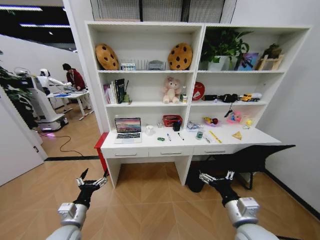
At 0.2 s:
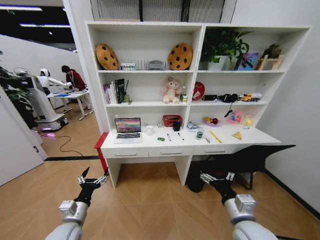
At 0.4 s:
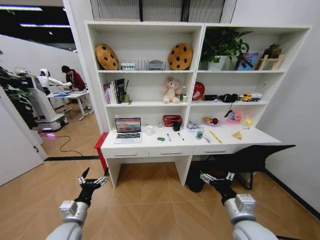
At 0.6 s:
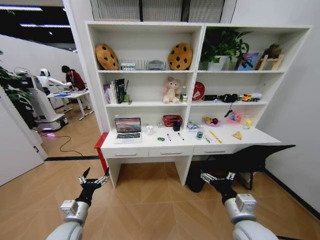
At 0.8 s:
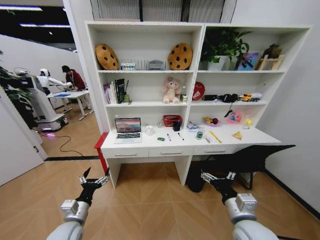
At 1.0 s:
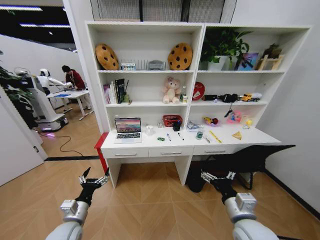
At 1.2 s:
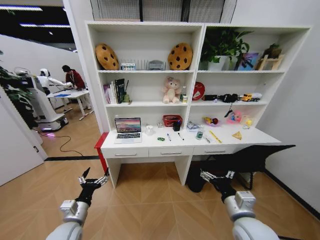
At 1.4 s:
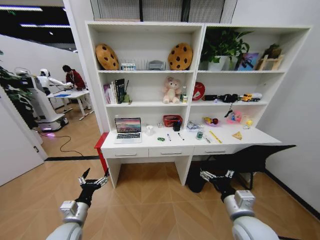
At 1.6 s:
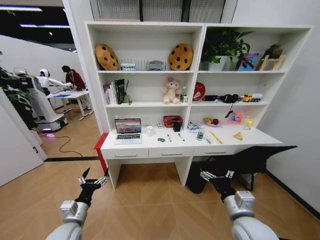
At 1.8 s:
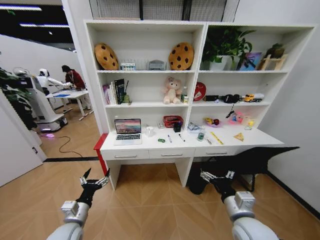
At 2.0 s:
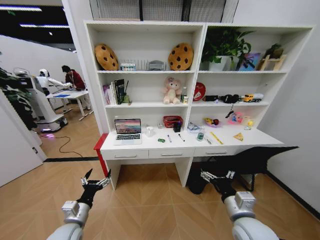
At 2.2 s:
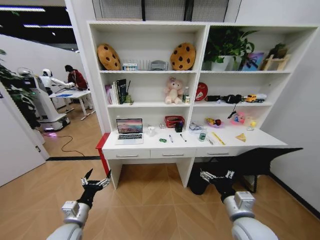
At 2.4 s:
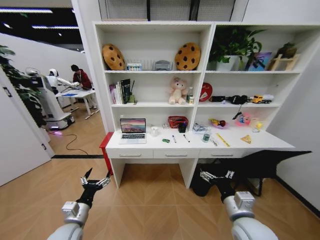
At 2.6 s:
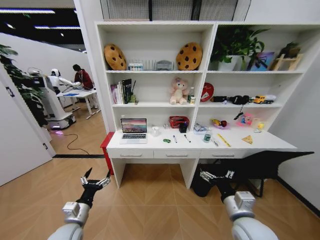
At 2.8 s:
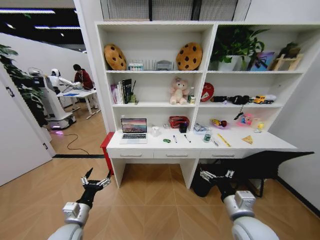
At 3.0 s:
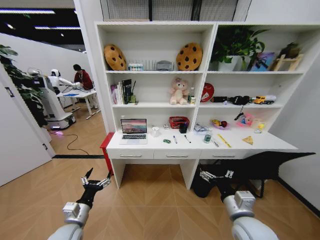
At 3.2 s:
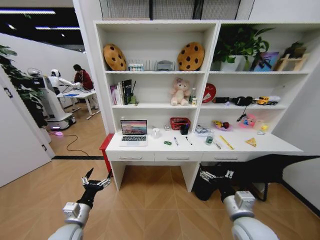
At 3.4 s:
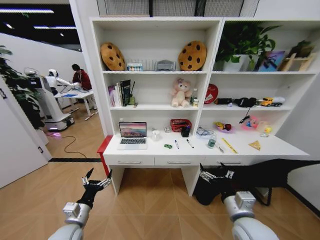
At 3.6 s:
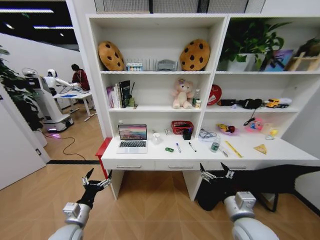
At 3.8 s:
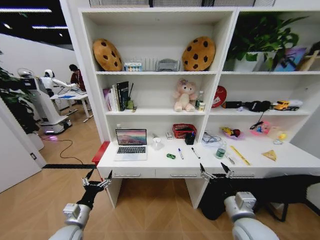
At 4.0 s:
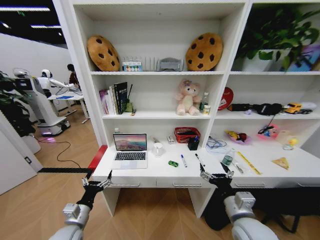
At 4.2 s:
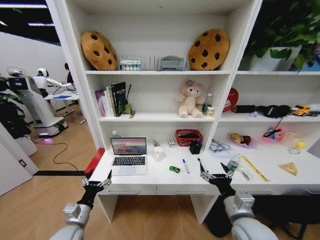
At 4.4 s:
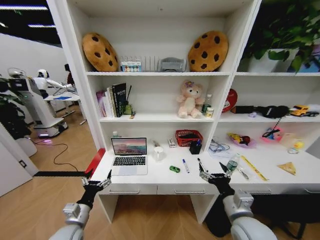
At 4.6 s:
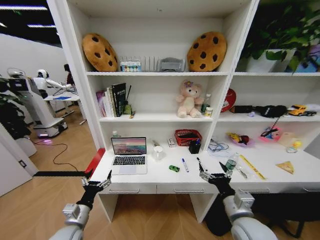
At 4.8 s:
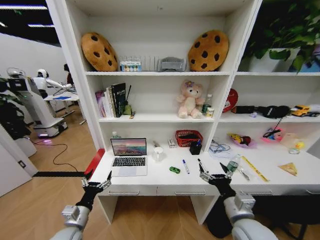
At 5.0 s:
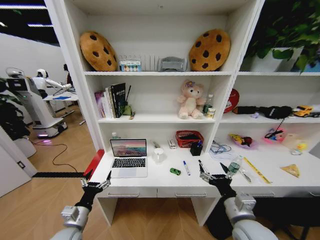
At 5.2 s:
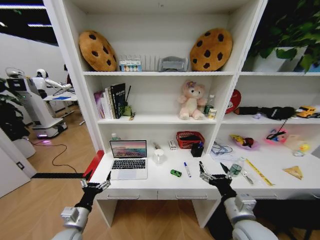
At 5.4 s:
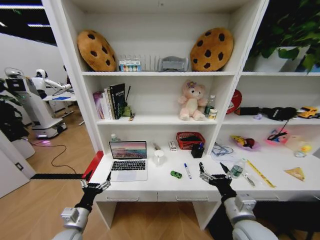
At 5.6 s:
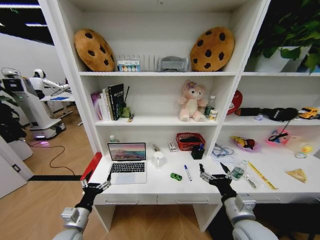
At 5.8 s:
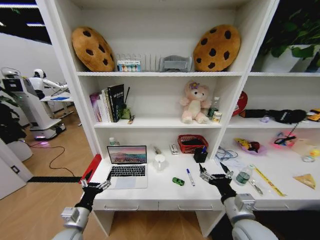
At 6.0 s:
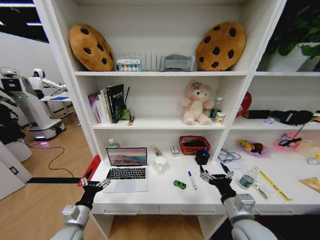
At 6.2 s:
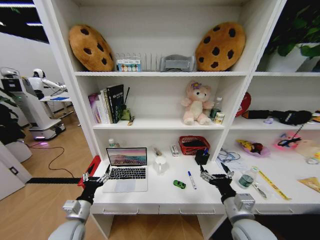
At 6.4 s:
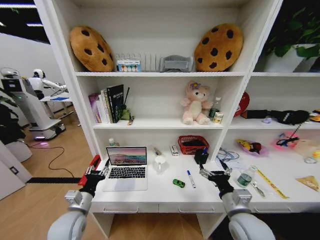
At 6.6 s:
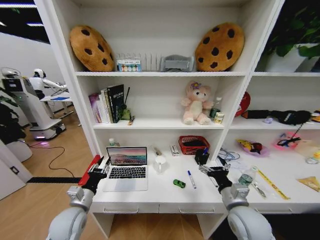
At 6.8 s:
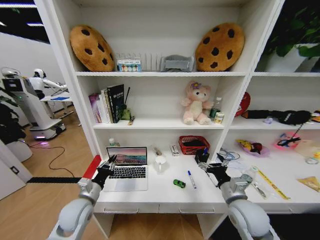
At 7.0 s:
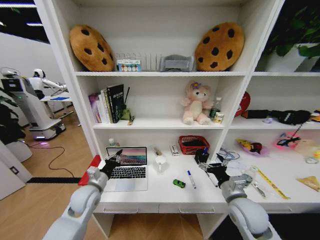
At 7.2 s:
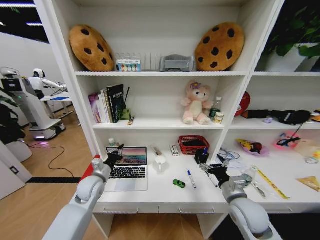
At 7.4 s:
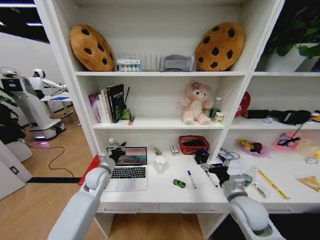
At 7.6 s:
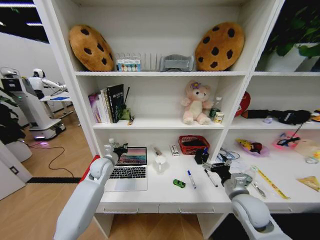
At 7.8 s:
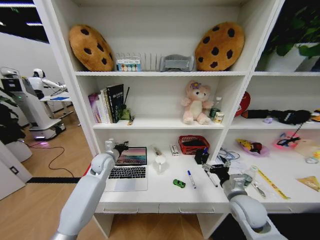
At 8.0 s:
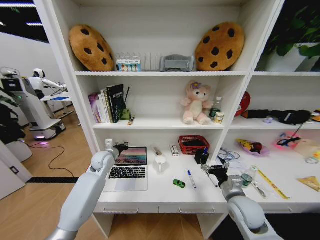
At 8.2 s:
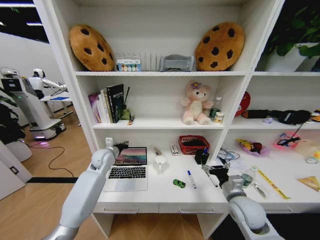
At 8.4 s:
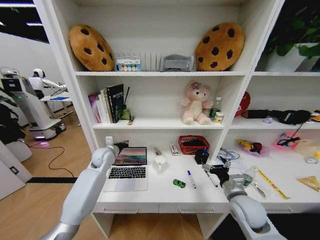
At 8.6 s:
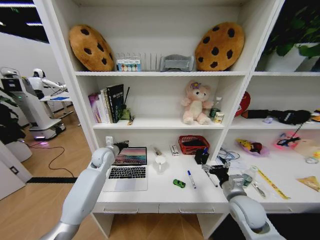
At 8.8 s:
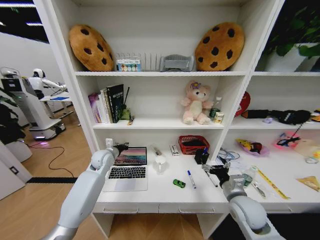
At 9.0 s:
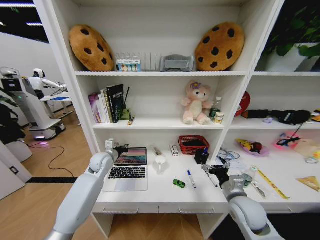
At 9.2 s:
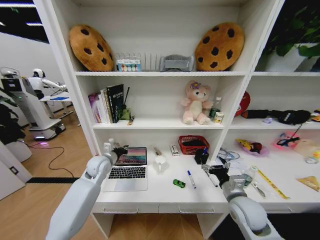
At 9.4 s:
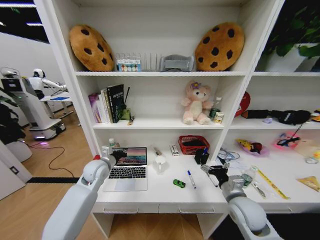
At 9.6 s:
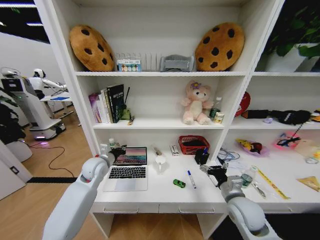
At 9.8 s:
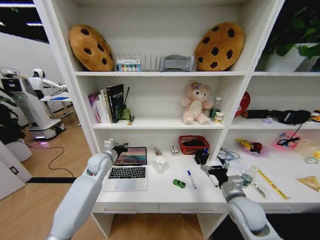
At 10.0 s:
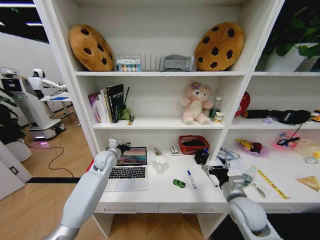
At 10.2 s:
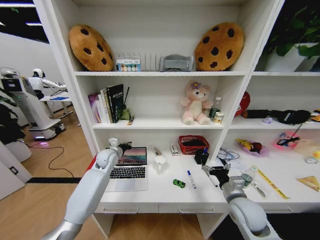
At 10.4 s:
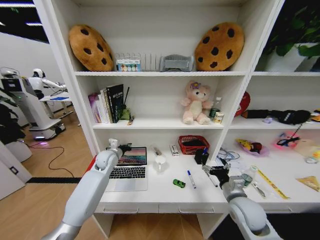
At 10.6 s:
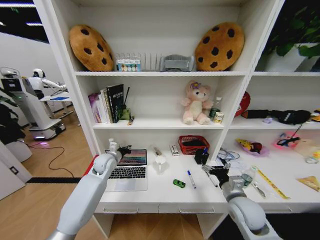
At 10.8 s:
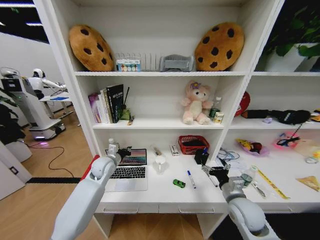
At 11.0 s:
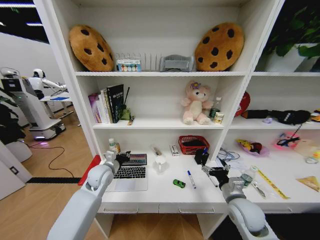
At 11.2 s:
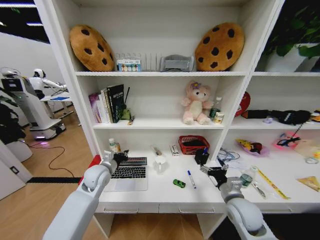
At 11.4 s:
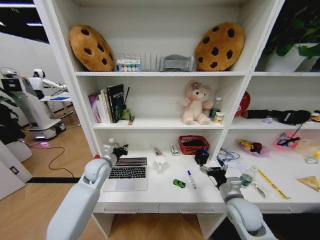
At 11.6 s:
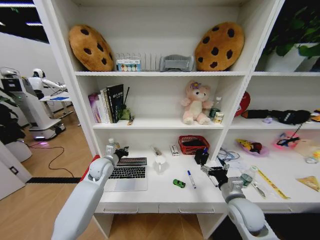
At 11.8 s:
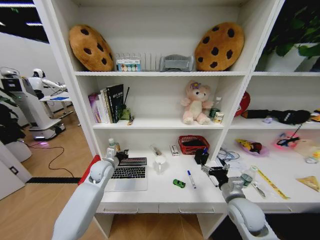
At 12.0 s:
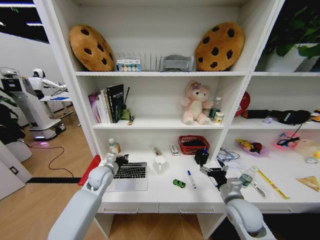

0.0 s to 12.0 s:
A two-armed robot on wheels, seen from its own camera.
Task of the whole recording: Organize the objects on the table.
6.0 to 7.6 s: The left gripper moves forward, roughly 25 cm, and closes; the right gripper goes approximately 10 cm forward and to the right.
7.6 to 9.0 s: The grippers stay close to where they were, moving slightly.
9.0 to 10.4 s: The left gripper goes backward and returns, approximately 5 cm each way.
10.4 to 12.0 s: The left gripper shifts about 10 cm backward.

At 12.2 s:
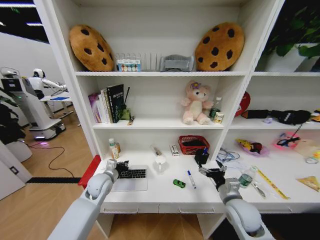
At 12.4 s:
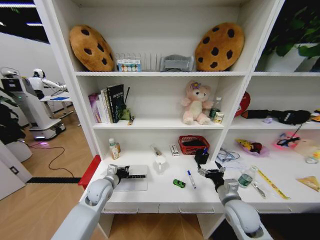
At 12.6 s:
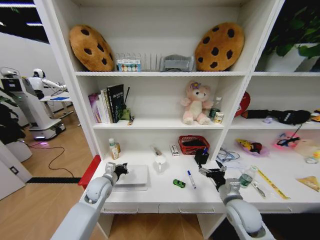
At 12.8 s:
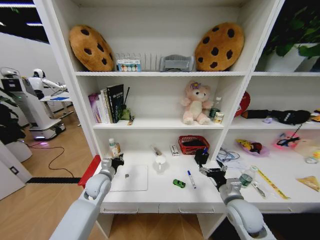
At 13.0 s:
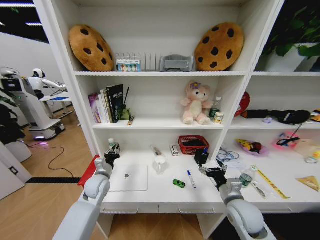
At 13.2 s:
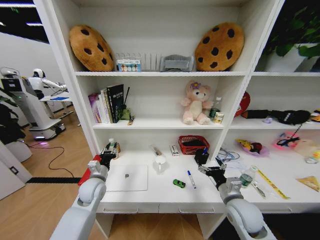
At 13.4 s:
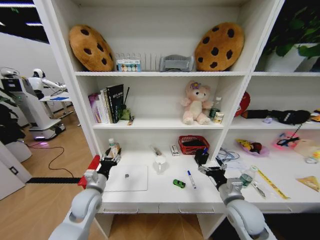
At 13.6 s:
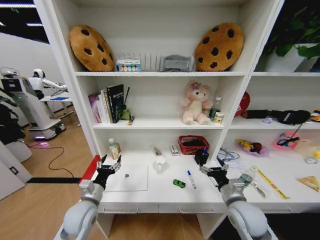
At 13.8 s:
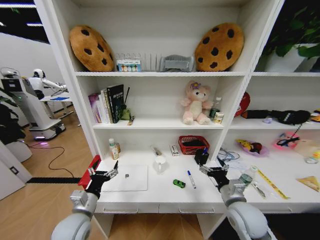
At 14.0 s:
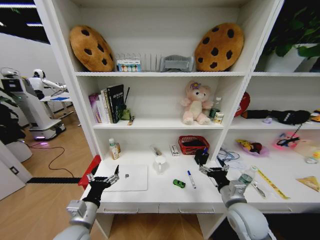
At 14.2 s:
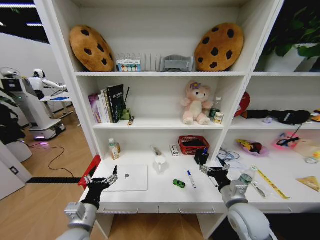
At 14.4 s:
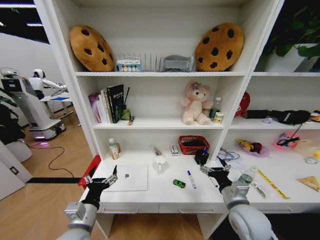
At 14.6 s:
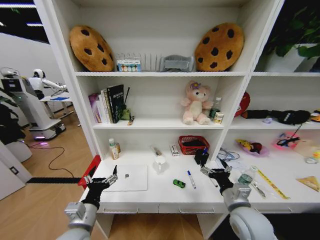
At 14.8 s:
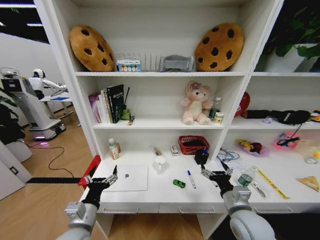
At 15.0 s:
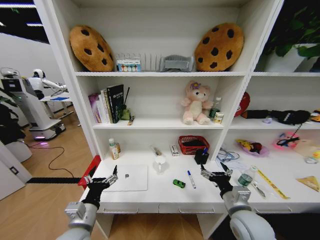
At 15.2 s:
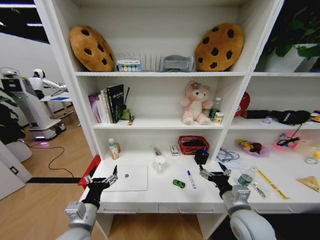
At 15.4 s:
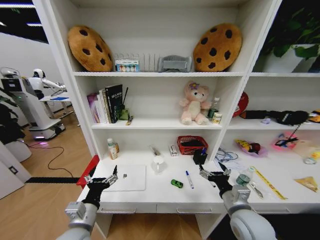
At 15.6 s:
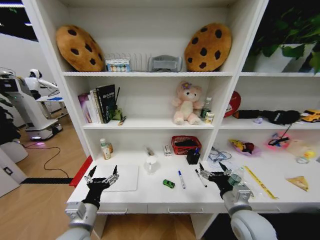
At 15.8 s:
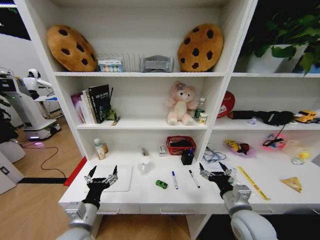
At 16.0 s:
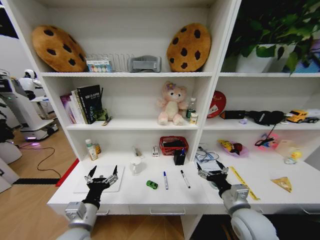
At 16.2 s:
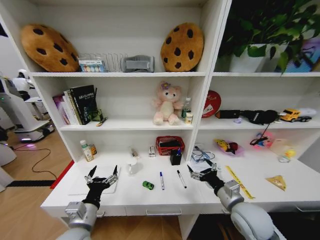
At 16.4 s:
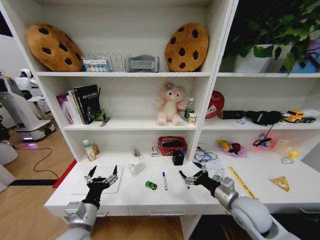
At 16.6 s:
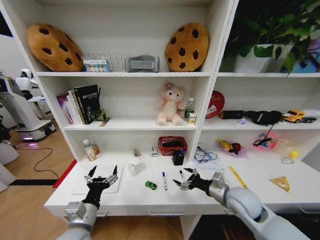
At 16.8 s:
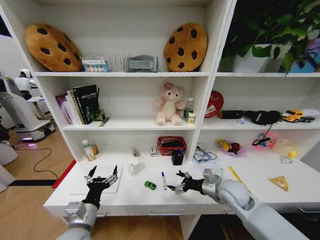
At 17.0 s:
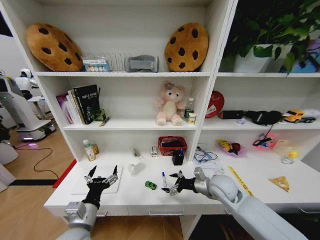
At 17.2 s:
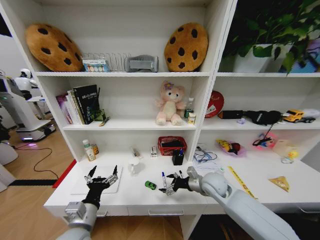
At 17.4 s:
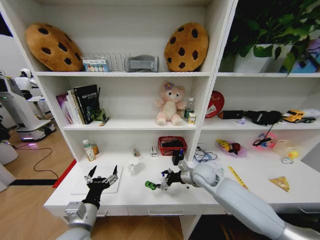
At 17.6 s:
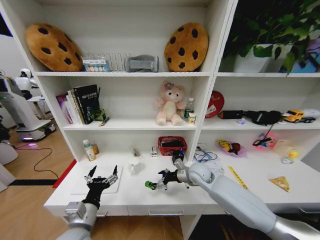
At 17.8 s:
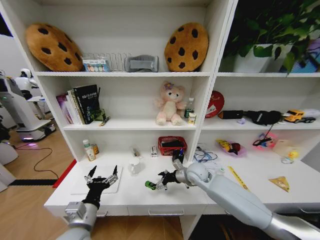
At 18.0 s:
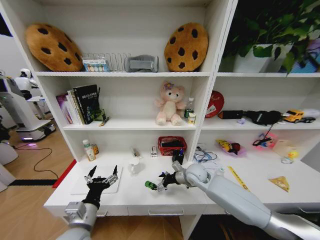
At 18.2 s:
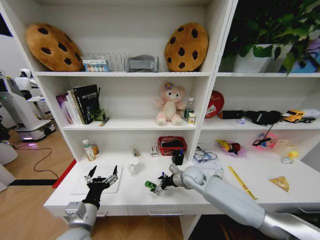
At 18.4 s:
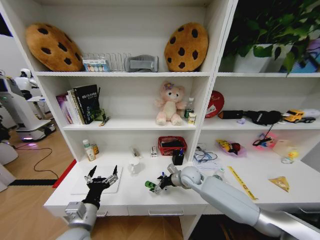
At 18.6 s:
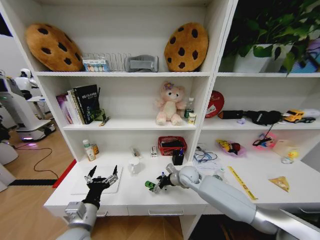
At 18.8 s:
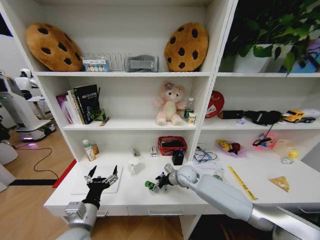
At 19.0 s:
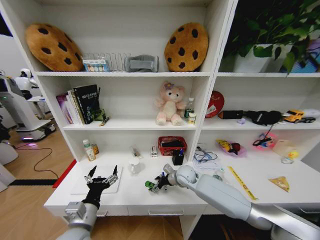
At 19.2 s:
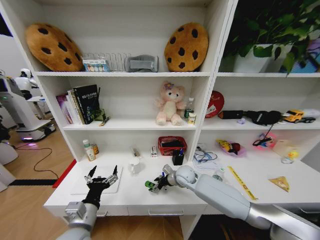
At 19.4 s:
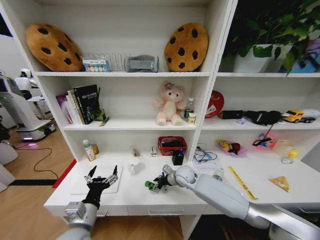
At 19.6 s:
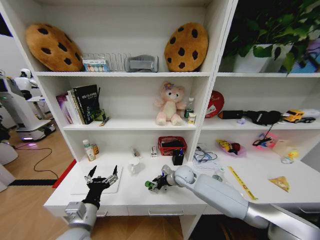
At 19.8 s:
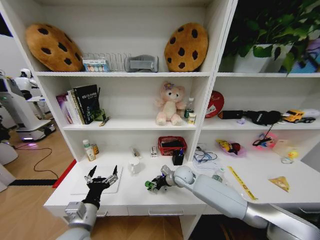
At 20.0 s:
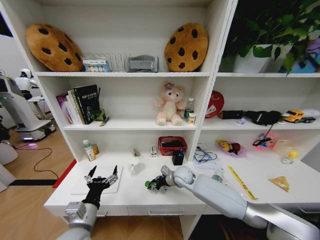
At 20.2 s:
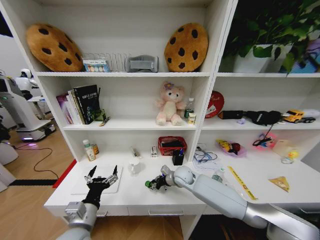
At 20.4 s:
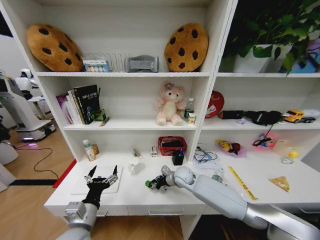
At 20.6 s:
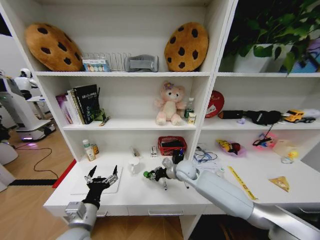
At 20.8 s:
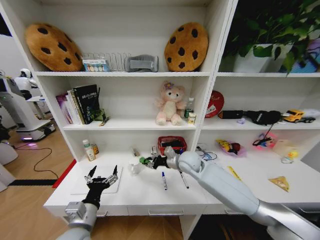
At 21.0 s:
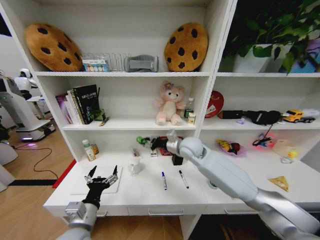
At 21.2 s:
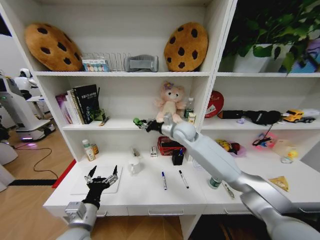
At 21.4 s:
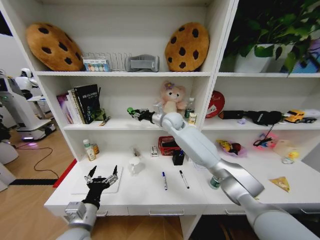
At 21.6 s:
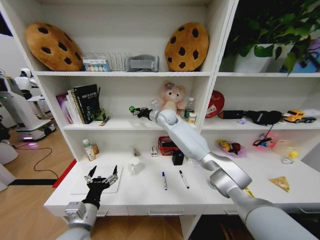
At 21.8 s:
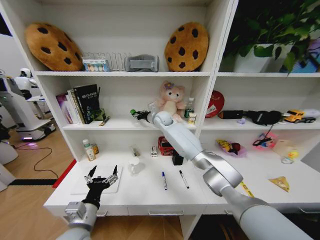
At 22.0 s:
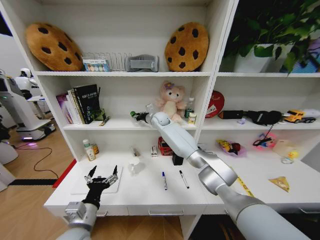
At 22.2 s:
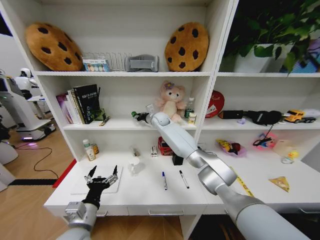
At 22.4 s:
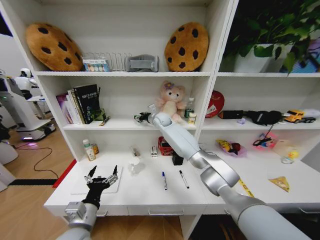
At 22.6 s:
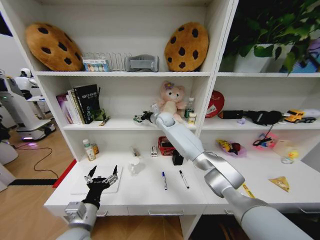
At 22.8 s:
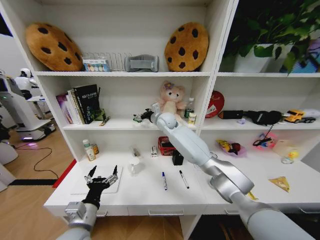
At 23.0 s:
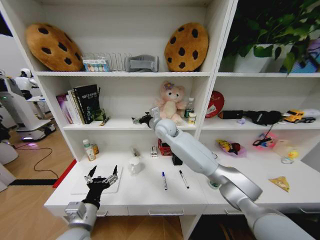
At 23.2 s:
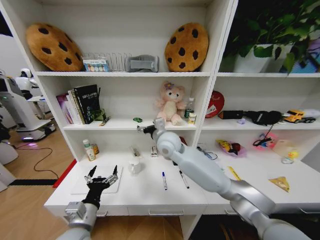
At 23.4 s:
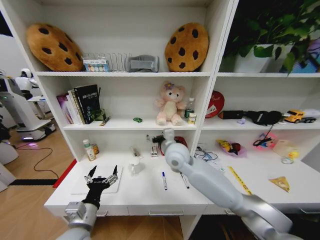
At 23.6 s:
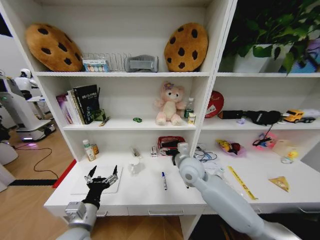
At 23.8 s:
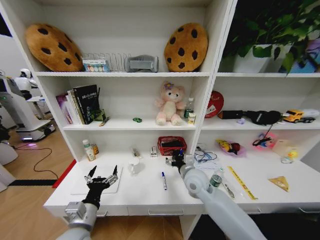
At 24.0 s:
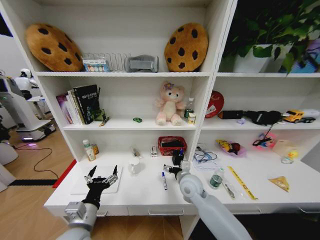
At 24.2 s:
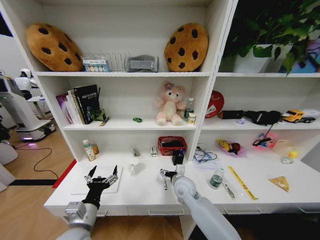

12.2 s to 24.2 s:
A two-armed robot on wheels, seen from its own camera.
Task of the whole recording: Organize the objects on the table.
12.2 to 13.8 s: The left gripper shifts roughly 15 cm backward, and opens up.
13.8 to 15.2 s: The grippers make only small movements.
15.2 to 16.6 s: The right gripper heads forward, covering some 5 cm.
16.6 to 18.2 s: The right gripper goes approximately 20 cm forward and to the left.
18.2 to 19.8 s: The right gripper shifts by about 5 cm, and closes up.
19.8 to 21.2 s: The right gripper goes about 25 cm upward.
21.2 to 22.6 s: The right gripper goes some 15 cm forward and to the left, and opens up.
22.6 to 24.2 s: The right gripper heads backward and downward, covering some 35 cm.
